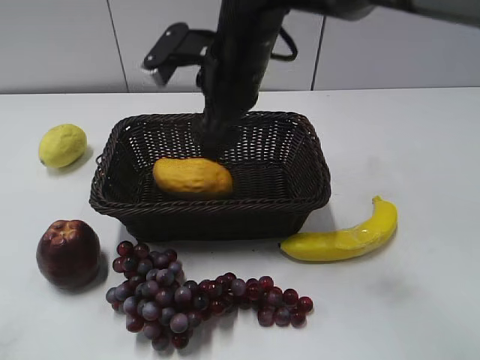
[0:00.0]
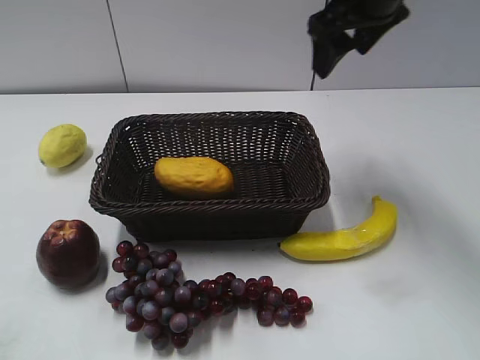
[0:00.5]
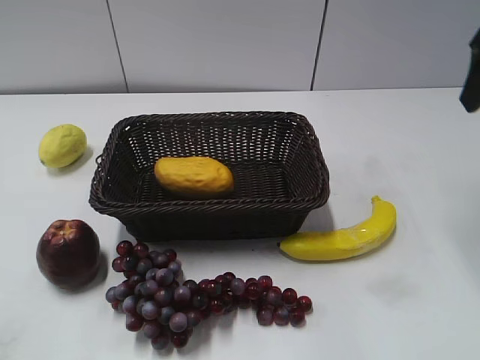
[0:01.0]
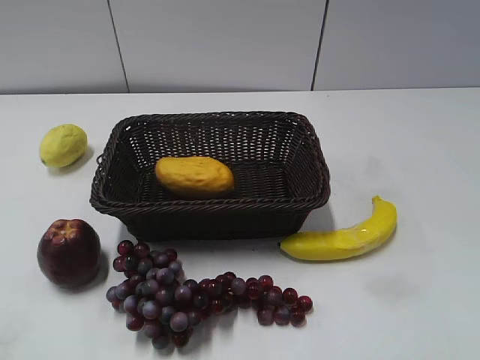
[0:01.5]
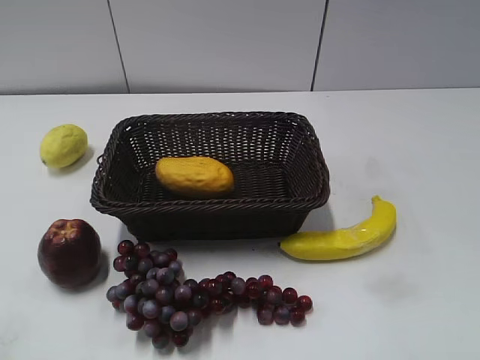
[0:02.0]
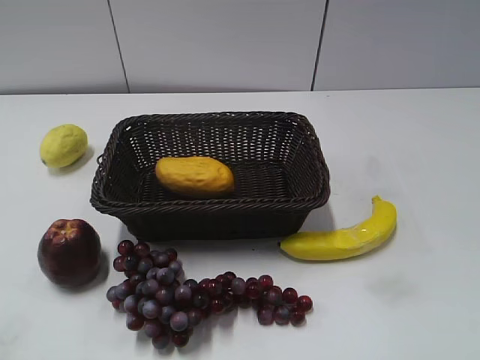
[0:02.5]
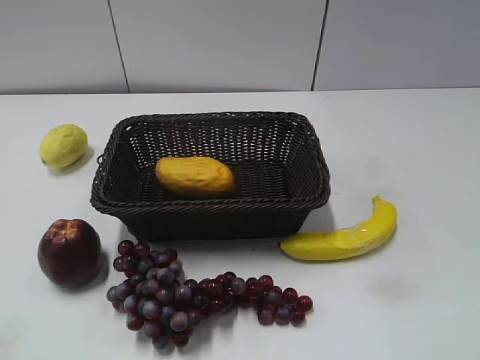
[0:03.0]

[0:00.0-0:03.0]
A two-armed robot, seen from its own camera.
0:00.0 to 0:01.5: The right gripper moves to the right and backward, about 35 cm.
